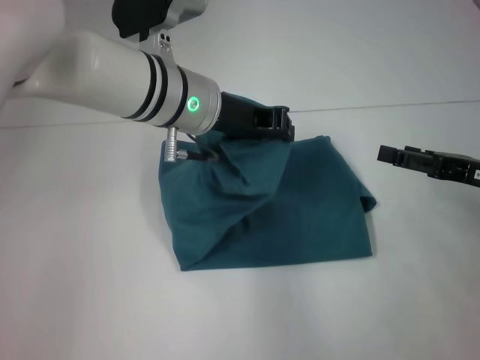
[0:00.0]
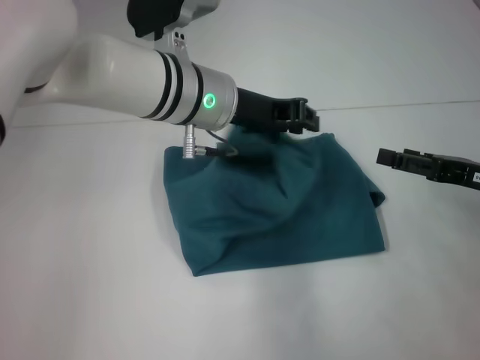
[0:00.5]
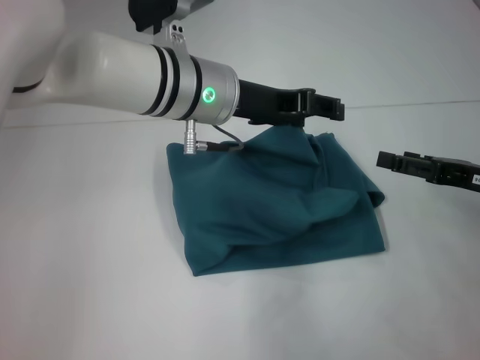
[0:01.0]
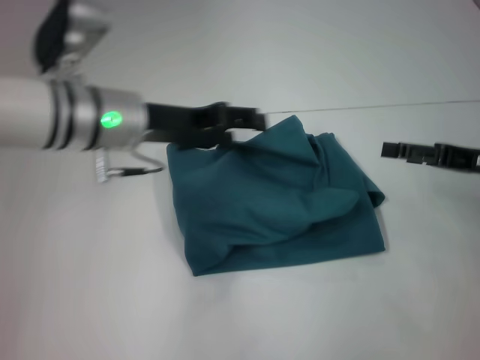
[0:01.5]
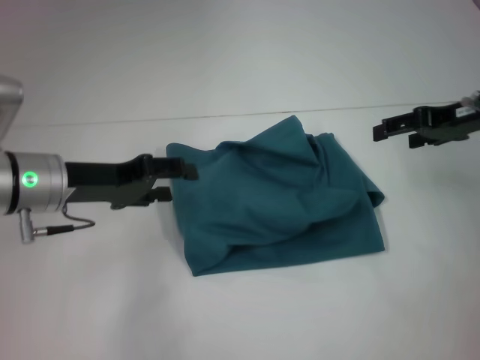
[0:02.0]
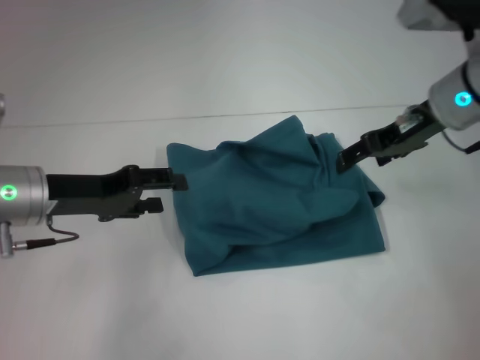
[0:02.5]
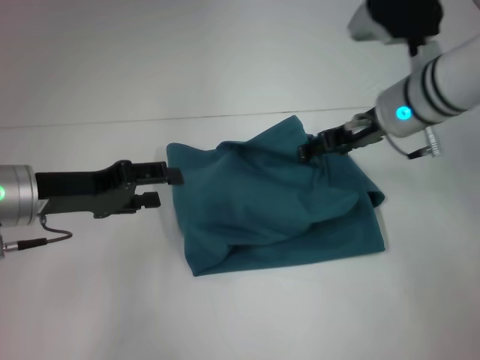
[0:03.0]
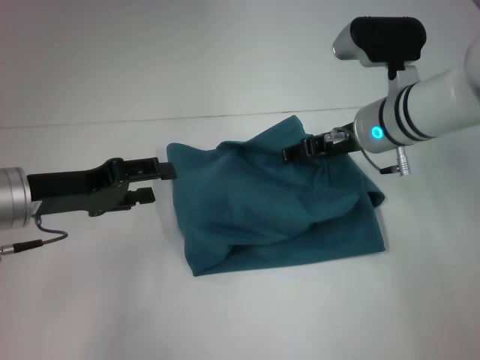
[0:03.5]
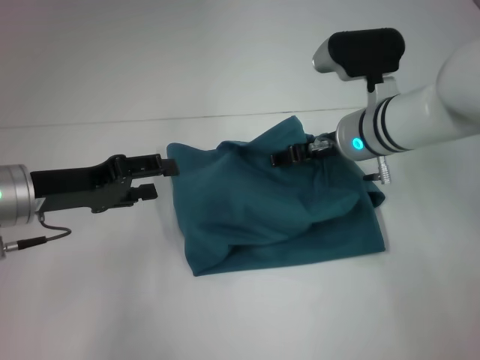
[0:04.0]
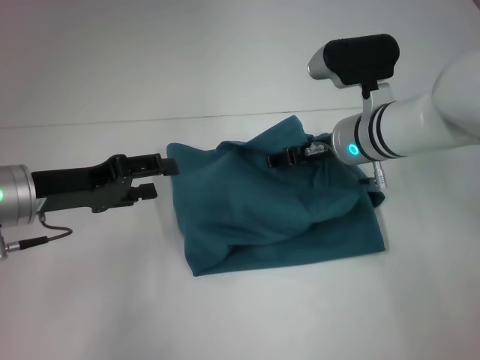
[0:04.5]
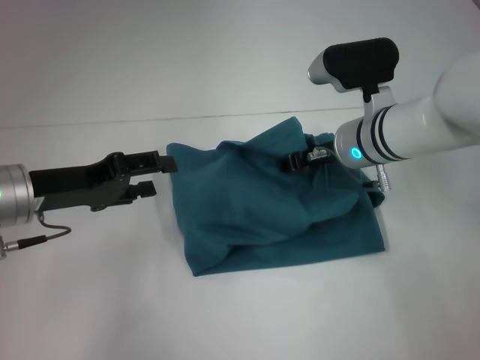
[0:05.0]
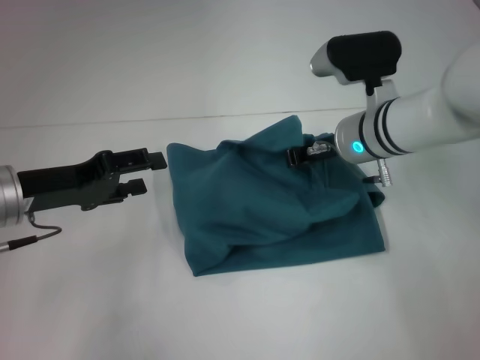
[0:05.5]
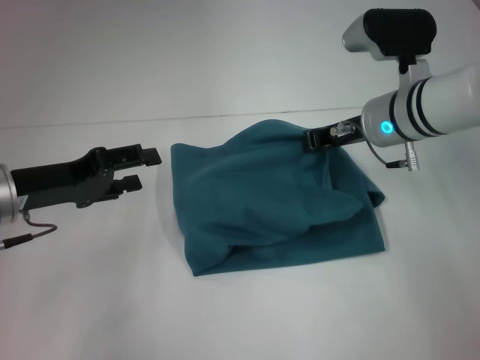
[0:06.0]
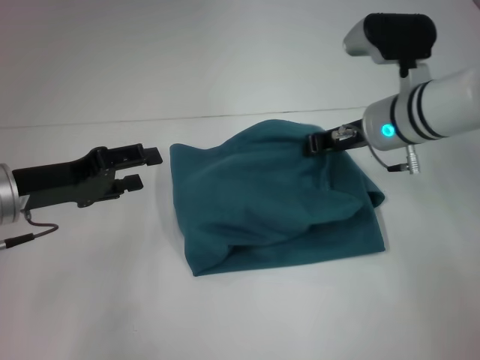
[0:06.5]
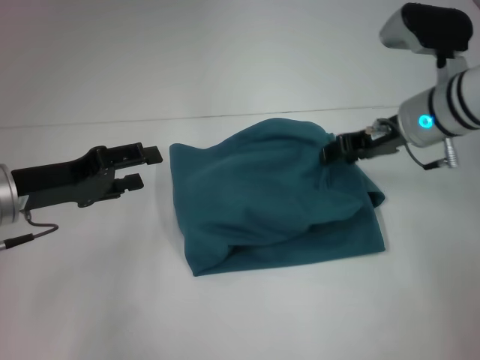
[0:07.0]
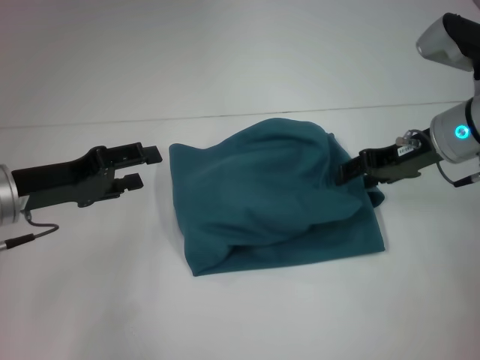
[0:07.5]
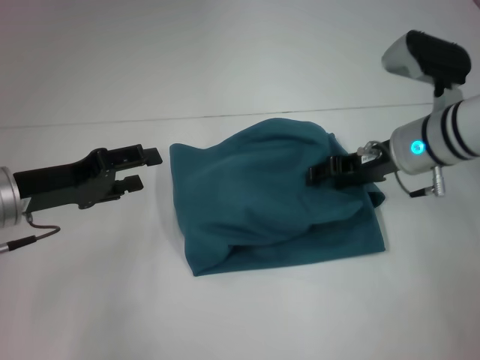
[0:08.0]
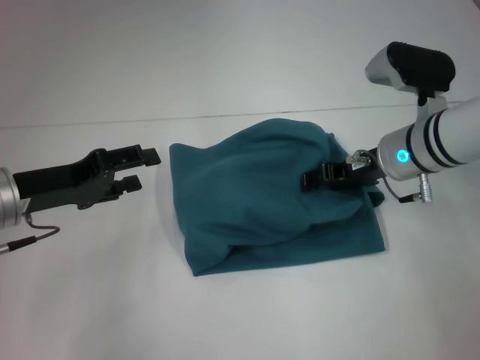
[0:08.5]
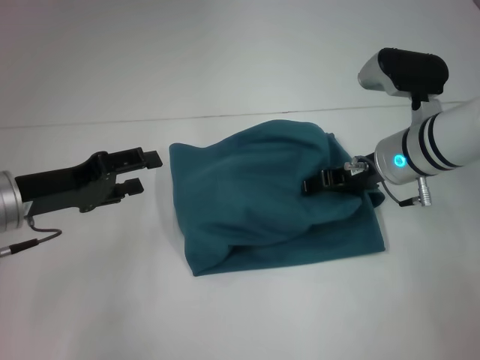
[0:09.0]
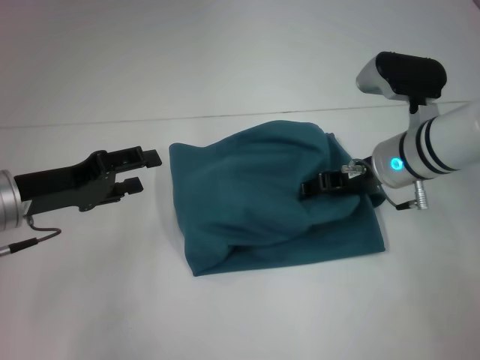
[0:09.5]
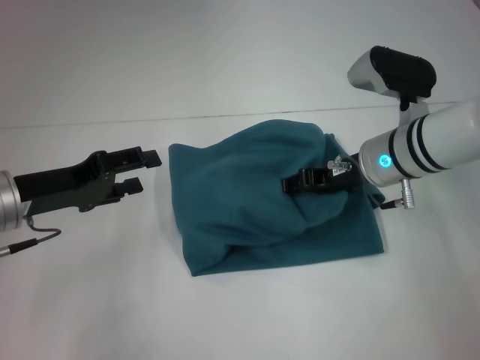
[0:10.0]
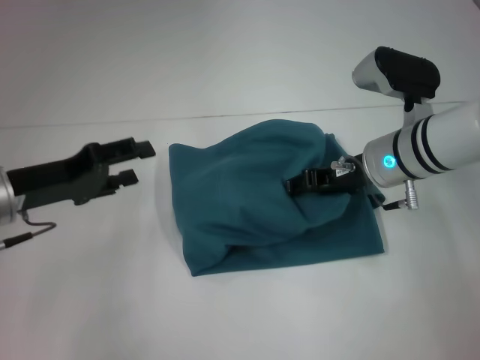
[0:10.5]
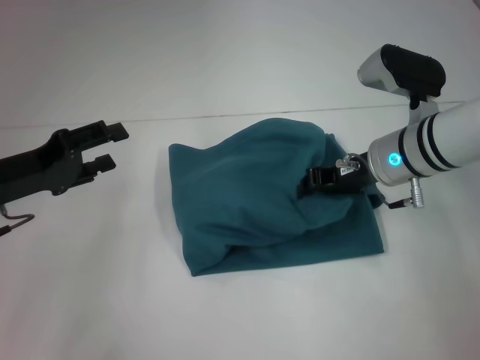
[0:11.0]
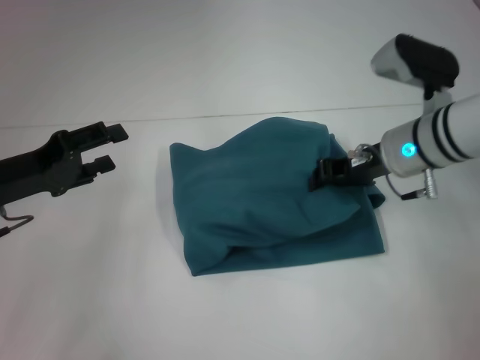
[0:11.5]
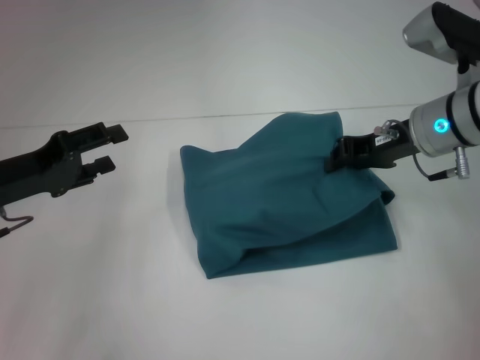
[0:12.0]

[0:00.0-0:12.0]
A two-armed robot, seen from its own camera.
0:00.0 to 0:02.0: The right gripper heads forward and upward, covering approximately 10 cm, while the left gripper heads to the left and downward, covering approximately 15 cm, and opens up.
0:02.0 to 0:04.0: The right gripper travels to the left and downward by some 15 cm.
0:04.0 to 0:06.0: The right gripper closes its fingers.
0:06.0 to 0:08.0: The right gripper opens.
0:08.0 to 0:10.0: The grippers stay close to where they were, moving slightly.
0:10.0 to 0:12.0: The right gripper changes place by approximately 5 cm, and closes up.

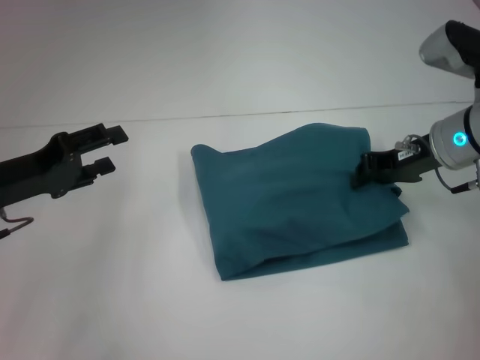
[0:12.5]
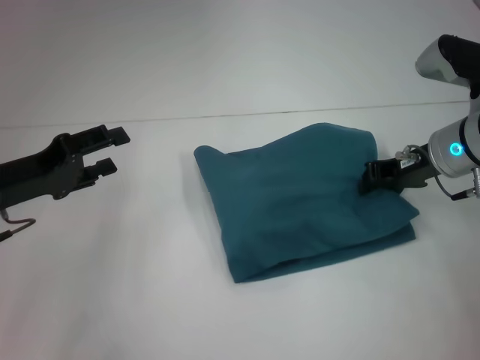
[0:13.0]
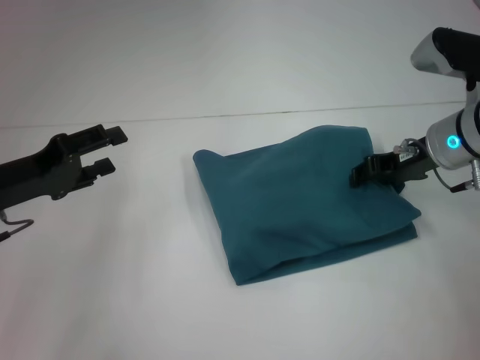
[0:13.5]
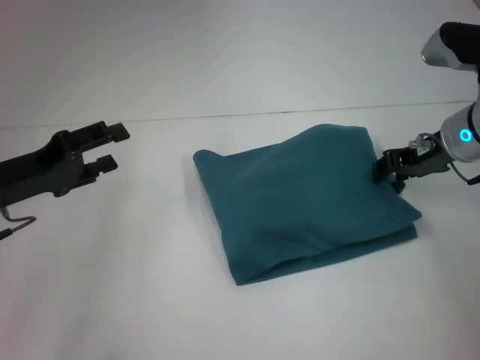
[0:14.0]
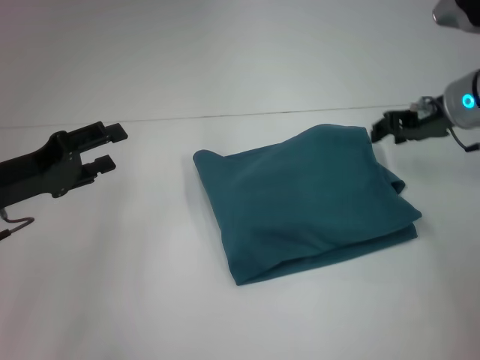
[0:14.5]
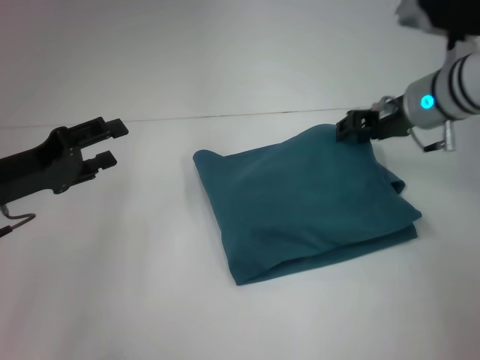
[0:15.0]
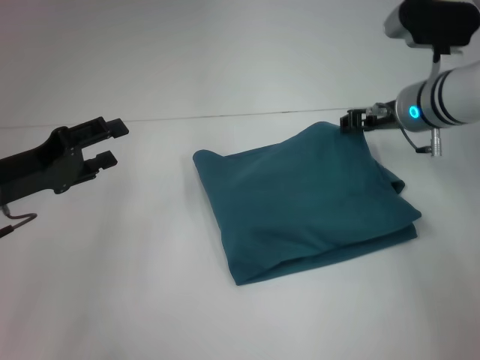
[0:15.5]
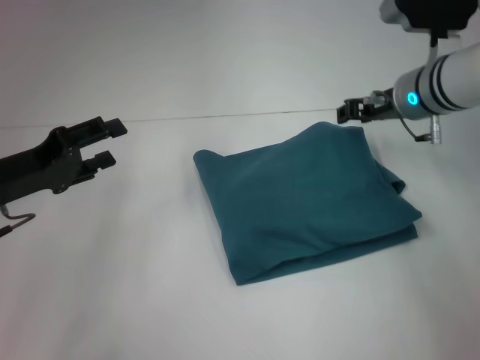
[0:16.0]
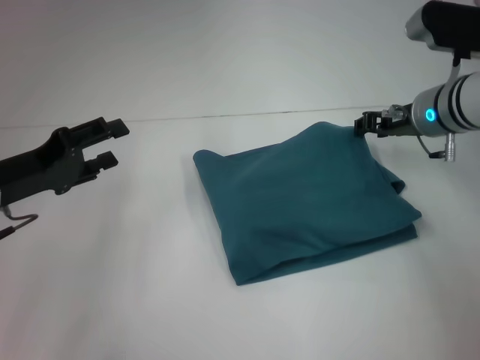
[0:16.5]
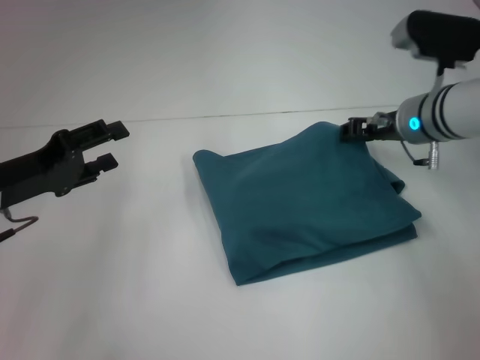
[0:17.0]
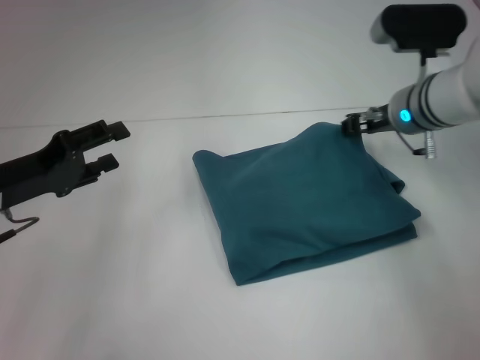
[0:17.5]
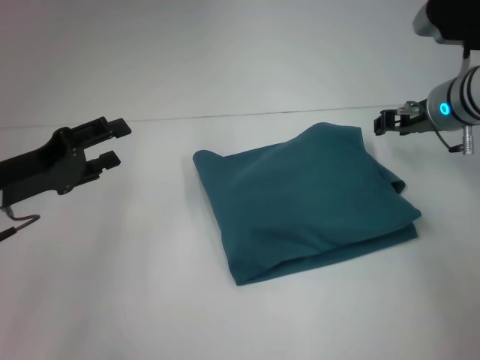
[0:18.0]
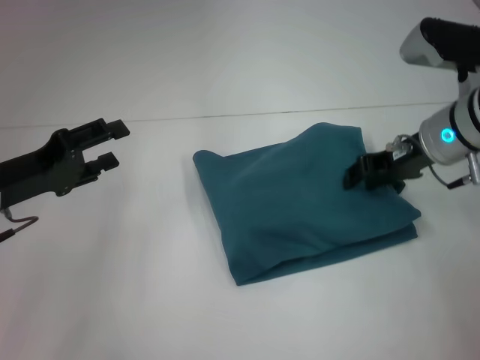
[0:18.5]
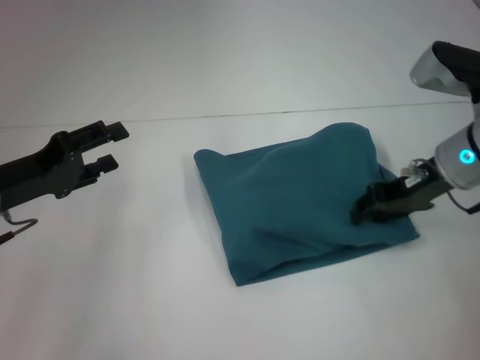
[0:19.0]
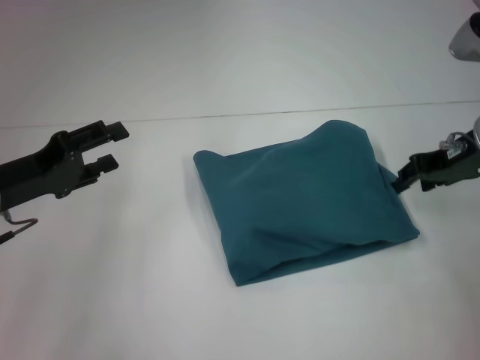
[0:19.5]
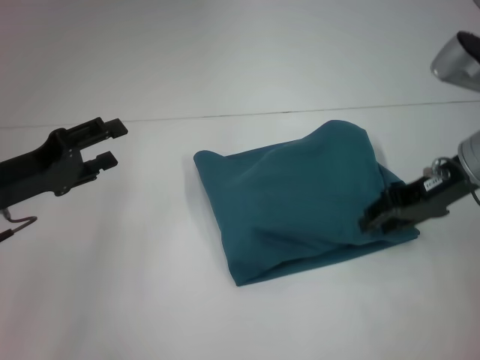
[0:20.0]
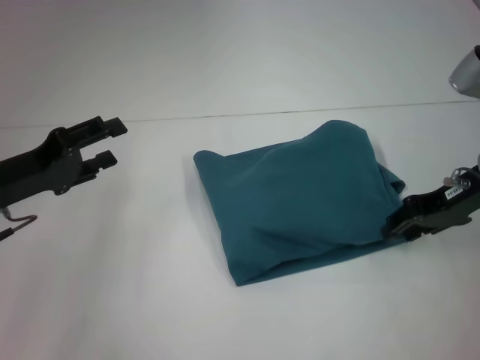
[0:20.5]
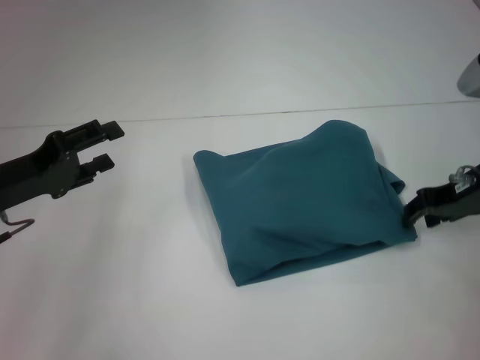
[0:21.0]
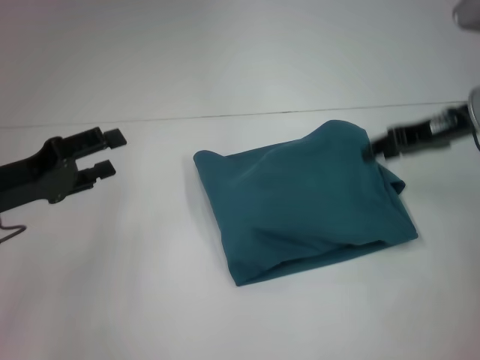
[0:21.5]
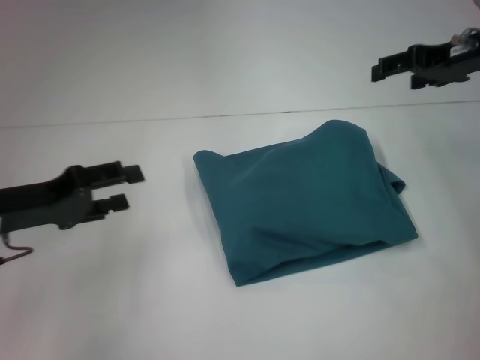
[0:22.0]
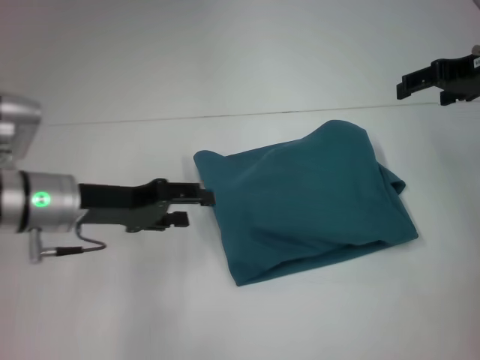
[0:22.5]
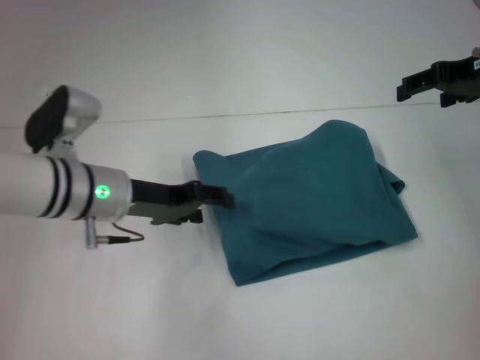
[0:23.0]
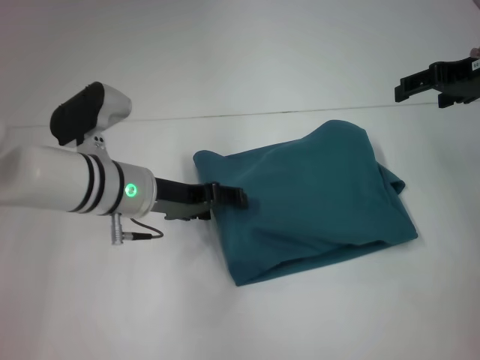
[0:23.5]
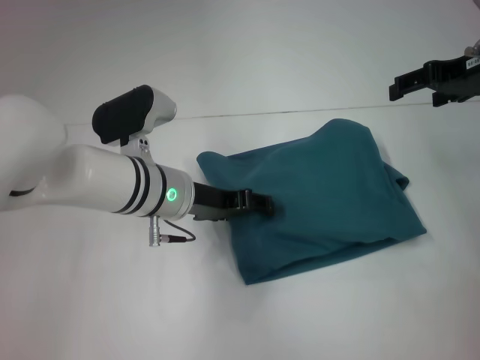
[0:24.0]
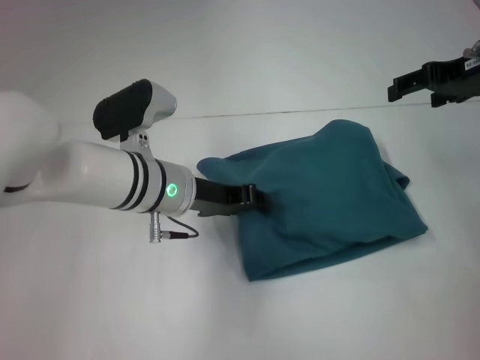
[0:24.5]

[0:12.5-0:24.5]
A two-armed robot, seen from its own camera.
0:12.5 to 0:14.5: The right gripper opens up.
0:14.5 to 0:16.5: The grippers make only small movements.
0:16.5 to 0:18.5: The grippers stay close to where they were, moving slightly.
0:18.5 to 0:20.5: The right gripper ends up approximately 5 cm from where it was.
0:20.5 to 0:22.5: The right gripper travels upward and forward by roughly 10 cm, and opens. Meanwhile the left gripper goes approximately 5 cm to the right.
0:22.5 to 0:24.5: The left gripper heads to the right, covering about 10 cm, and closes its fingers.

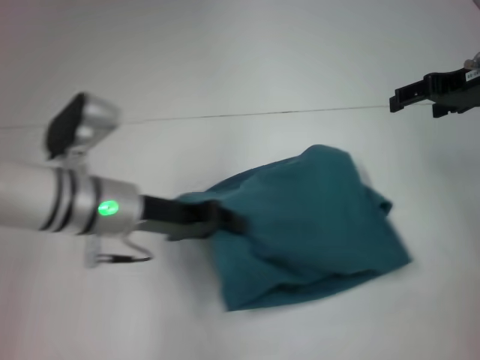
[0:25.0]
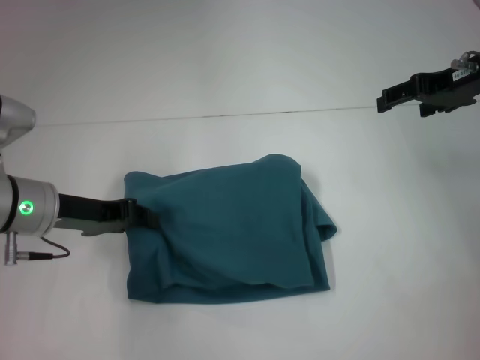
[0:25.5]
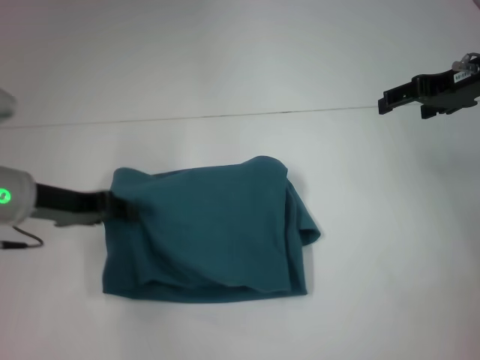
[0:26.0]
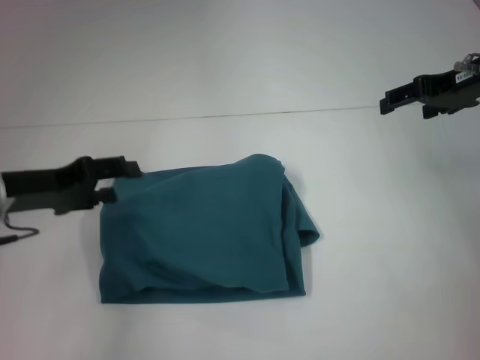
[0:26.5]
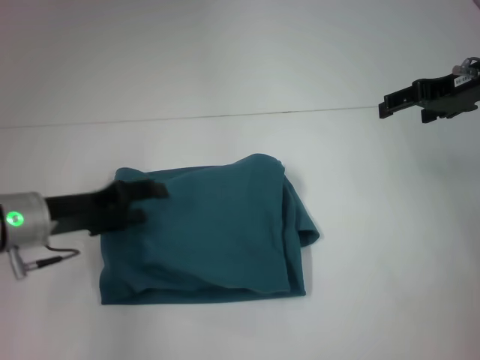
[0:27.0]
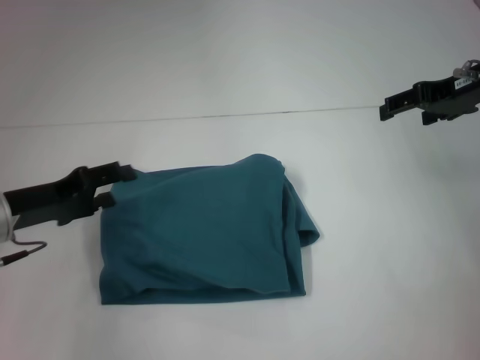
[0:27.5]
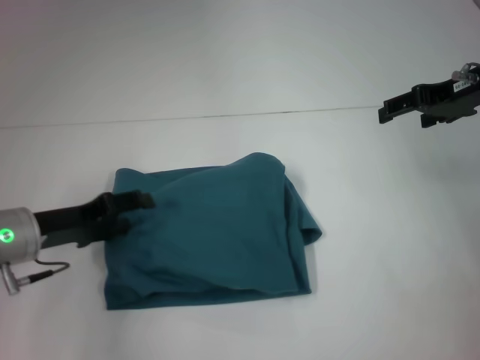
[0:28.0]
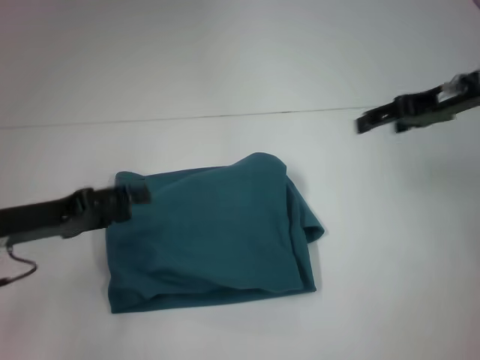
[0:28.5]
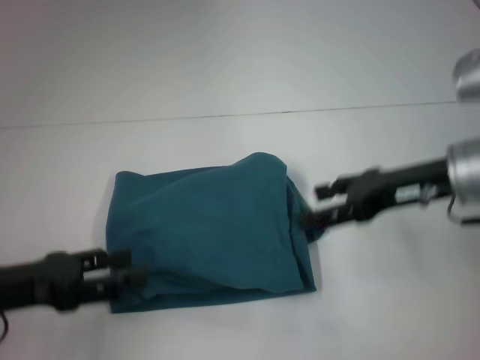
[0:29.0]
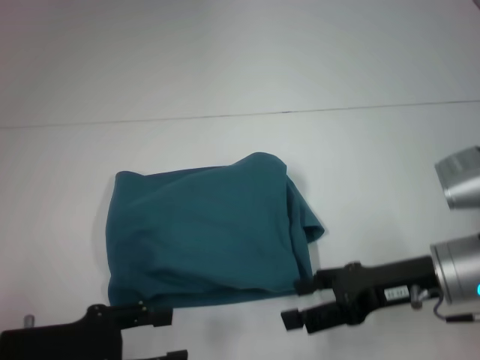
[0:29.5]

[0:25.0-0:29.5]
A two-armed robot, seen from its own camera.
0:25.0 to 0:27.0: The left gripper is displaced to the left by approximately 10 cm, and opens up.
0:27.0 to 0:29.5: The right gripper travels downward, backward and to the left by about 20 cm. The left gripper travels backward by roughly 15 cm.
